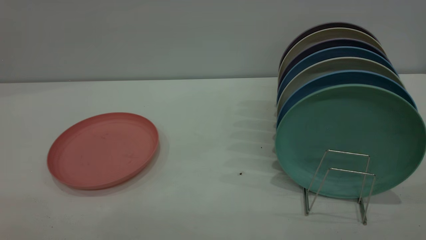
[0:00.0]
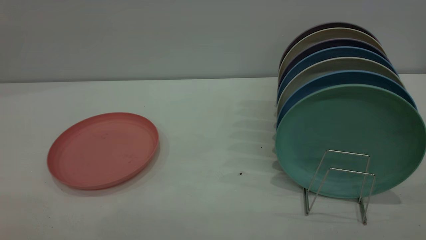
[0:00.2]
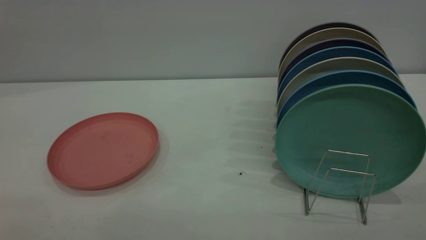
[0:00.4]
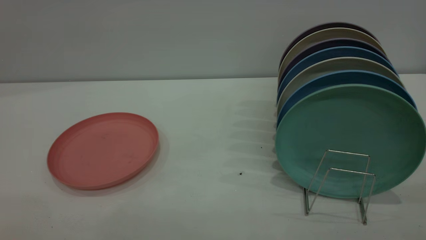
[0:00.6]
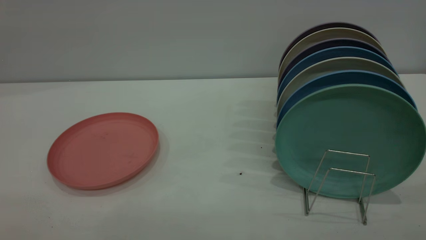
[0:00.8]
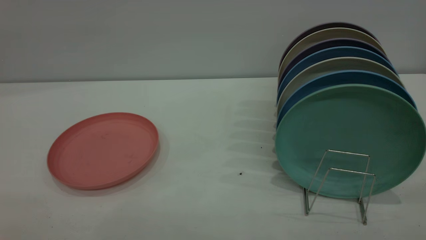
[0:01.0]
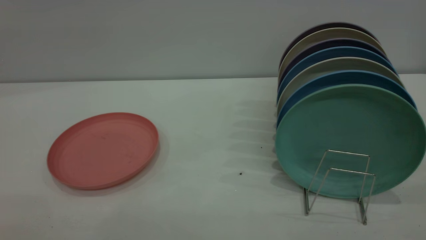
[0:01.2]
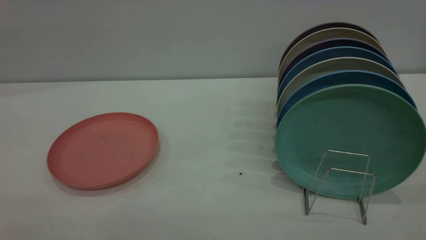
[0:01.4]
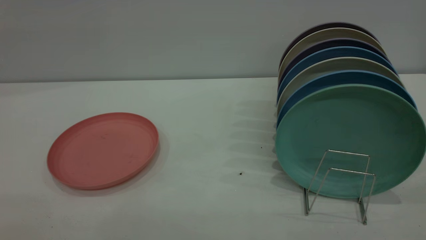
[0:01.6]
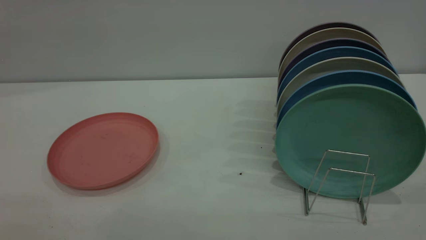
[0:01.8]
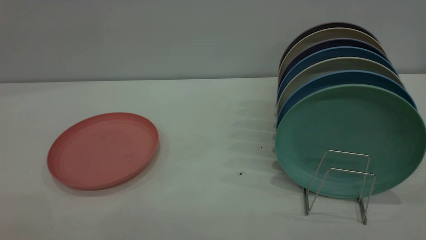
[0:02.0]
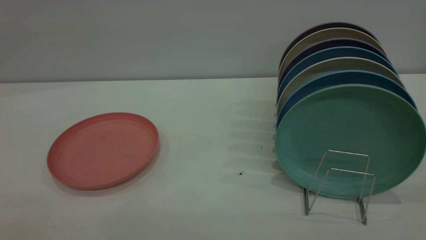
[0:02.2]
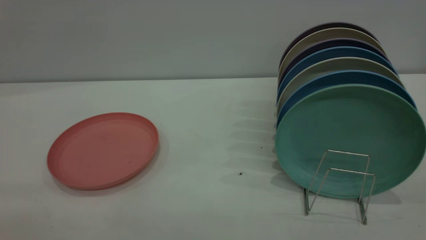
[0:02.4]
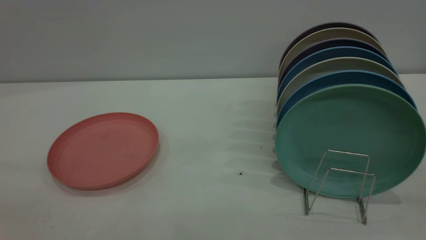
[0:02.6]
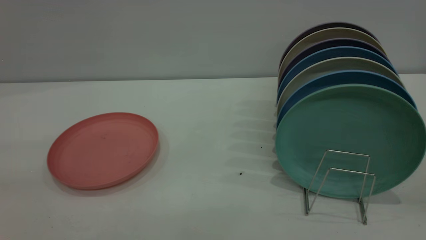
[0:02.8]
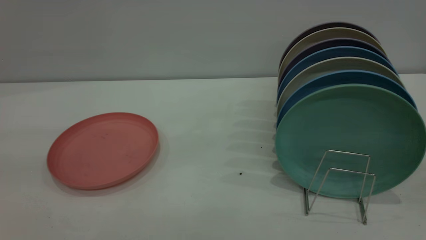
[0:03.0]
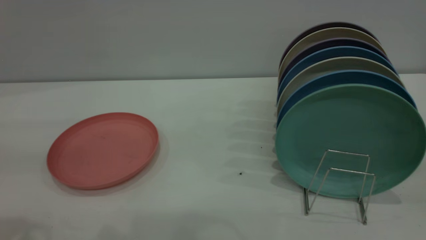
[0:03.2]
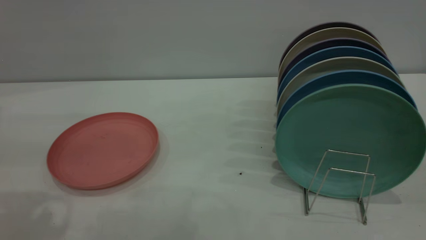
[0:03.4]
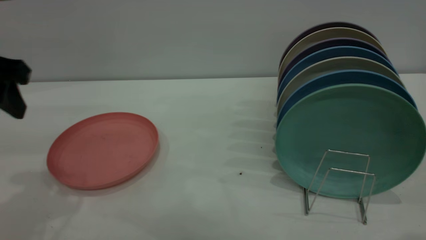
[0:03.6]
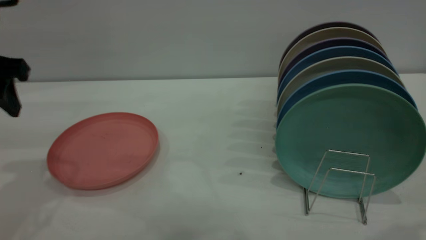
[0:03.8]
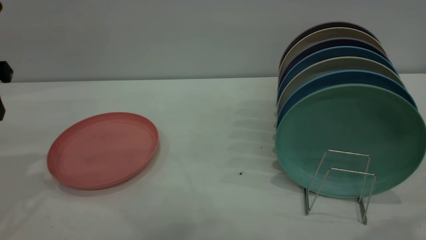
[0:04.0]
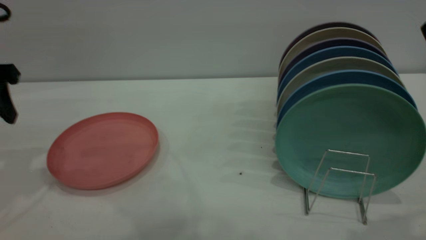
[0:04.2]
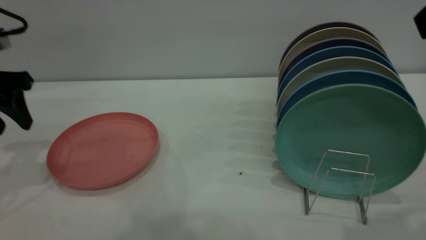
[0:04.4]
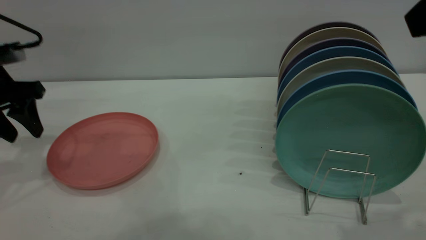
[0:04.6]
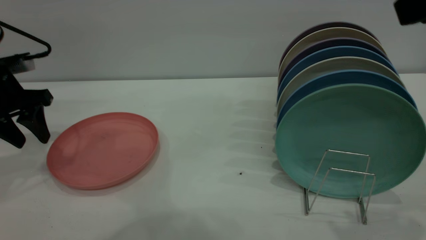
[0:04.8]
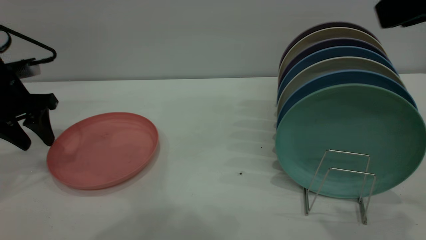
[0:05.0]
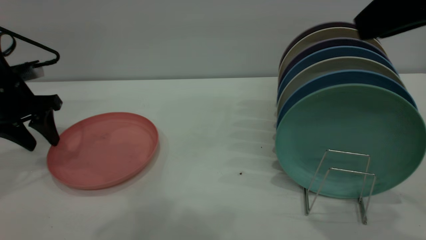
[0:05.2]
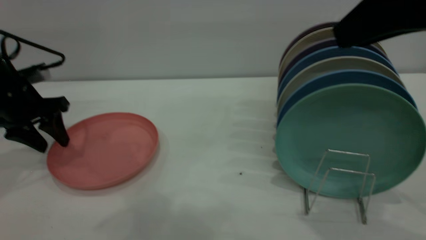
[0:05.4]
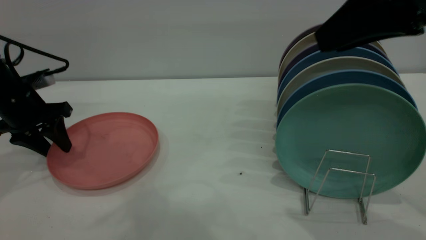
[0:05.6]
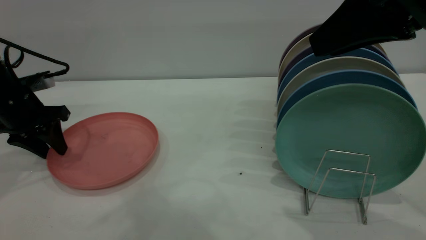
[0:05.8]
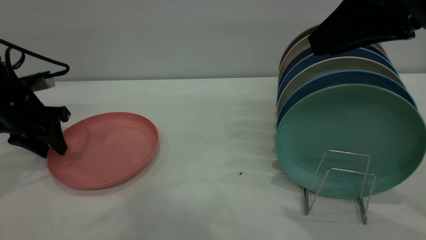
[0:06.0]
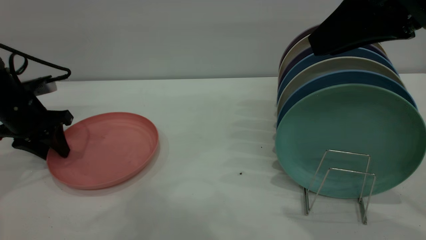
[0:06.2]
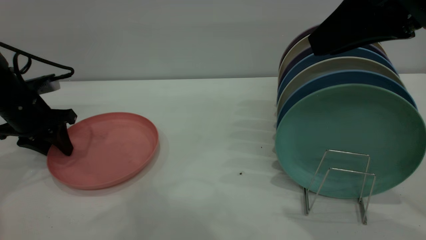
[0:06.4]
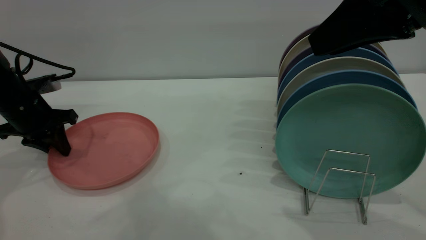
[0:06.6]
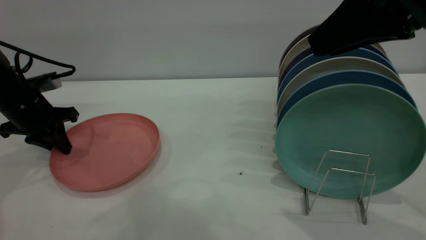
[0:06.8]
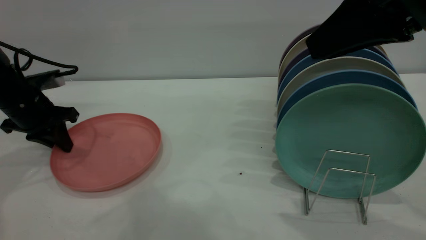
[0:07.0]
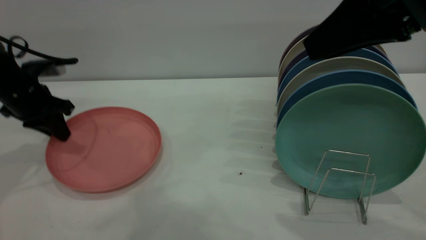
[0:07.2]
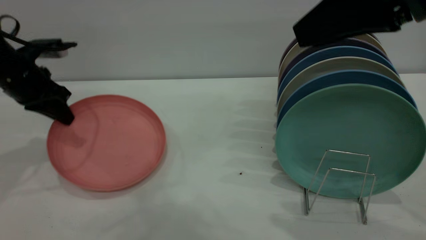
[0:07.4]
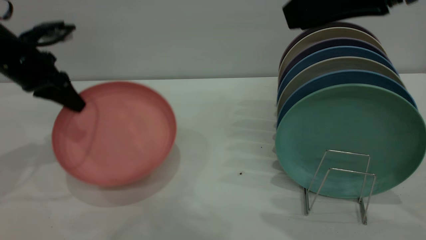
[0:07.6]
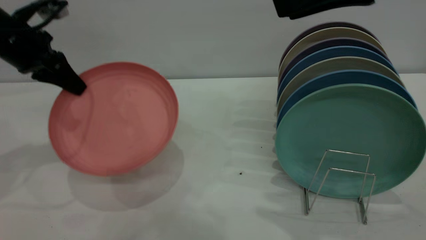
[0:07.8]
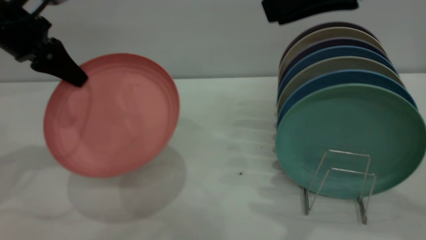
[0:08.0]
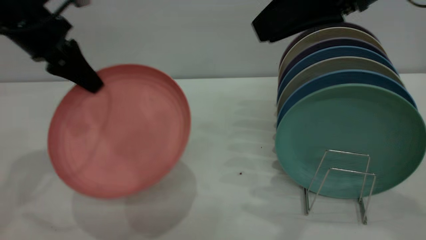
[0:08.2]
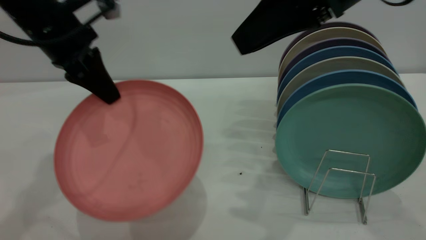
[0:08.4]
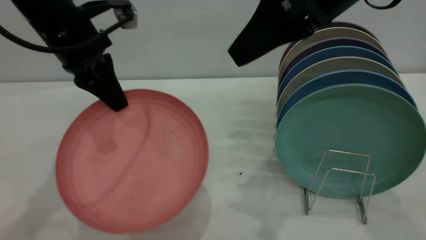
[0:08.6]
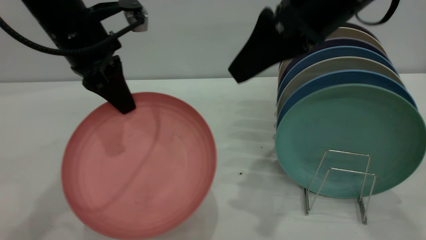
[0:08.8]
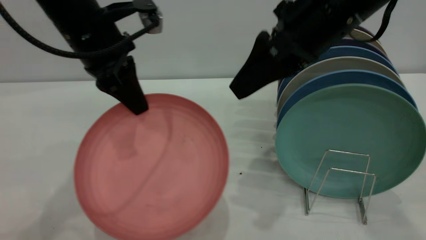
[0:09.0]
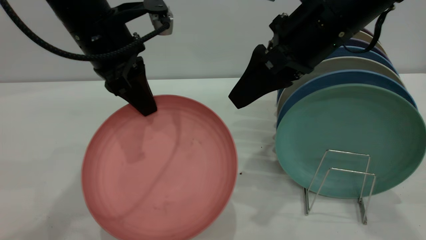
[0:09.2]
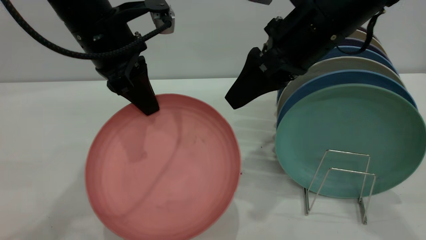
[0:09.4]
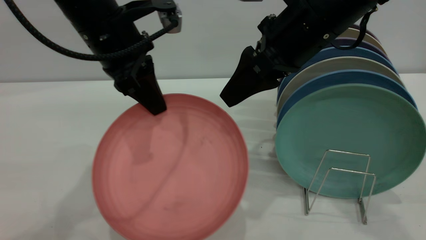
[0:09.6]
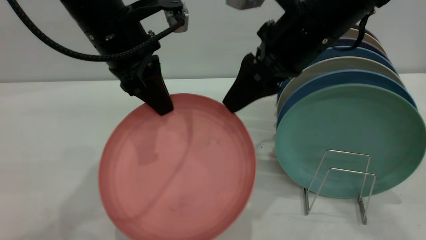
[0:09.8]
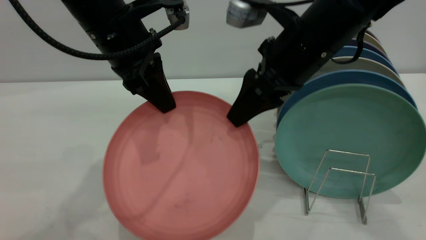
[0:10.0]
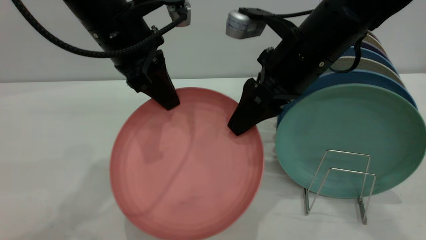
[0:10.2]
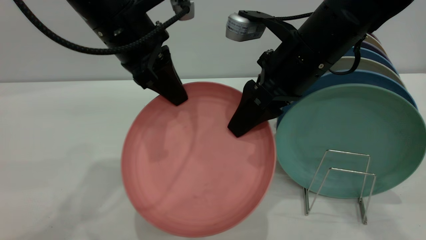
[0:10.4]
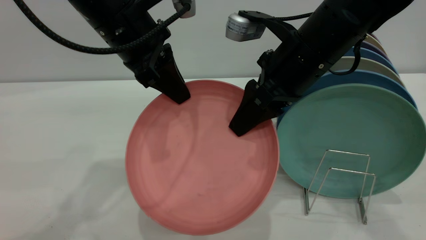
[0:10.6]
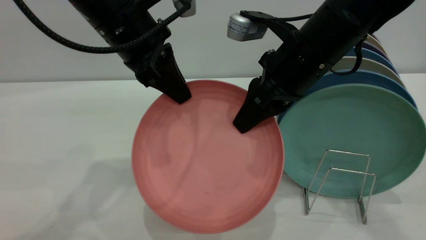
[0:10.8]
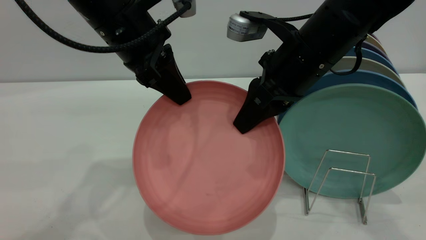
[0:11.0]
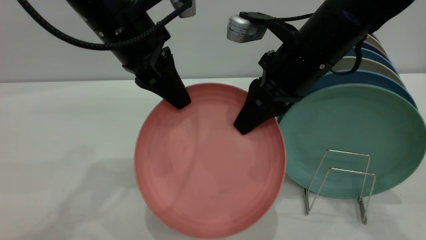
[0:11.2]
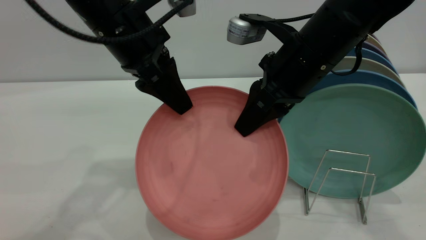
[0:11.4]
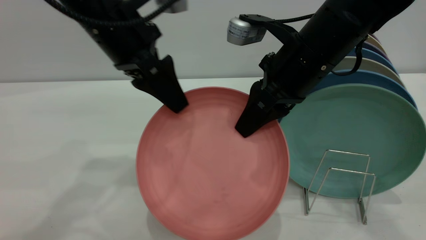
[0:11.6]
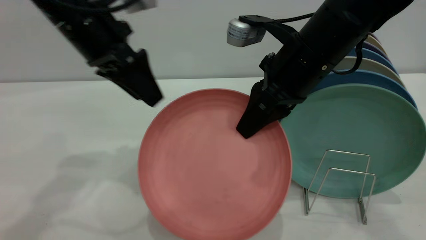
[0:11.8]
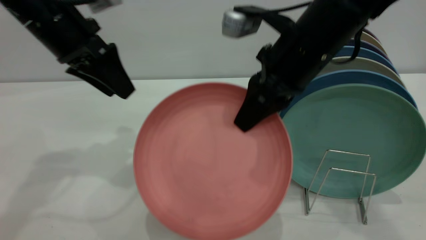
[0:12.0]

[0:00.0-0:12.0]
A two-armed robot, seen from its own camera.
Task of the whole recording: put the plate on the plate rack.
Step, 0:00.0 to 0:07.4: Pick up the plate with the left gripper.
Step, 0:07.6 to 0:11.8: Pass the plate from the left gripper to the right gripper.
0:00.0 to 0:01.6: Both grippers stay about where they are.
0:03.0 to 0:04.4: The left gripper goes about 25 cm forward and downward.
0:04.4 to 0:06.0: The left gripper is displaced downward by about 10 cm. The right gripper heads forward, covering approximately 5 cm.
0:06.0 to 0:07.6: The left gripper is displaced upward by about 5 cm, and closes up.
0:07.6 to 0:09.0: The right gripper heads downward, forward and to the left, covering about 10 cm. Meanwhile the left gripper heads to the right, covering about 15 cm.
0:09.0 to 0:10.4: The right gripper travels downward by roughly 5 cm.
0:10.4 to 0:12.0: The left gripper is displaced to the left by some 10 cm, and opens its fingers; the right gripper closes.

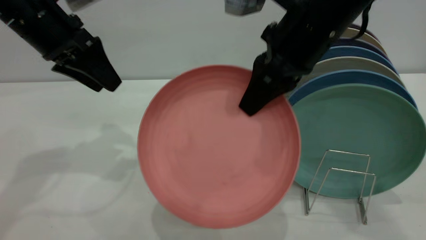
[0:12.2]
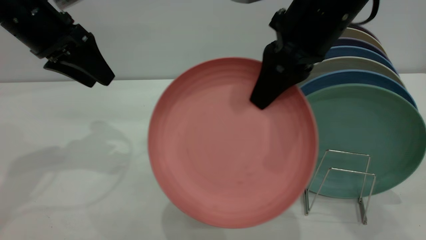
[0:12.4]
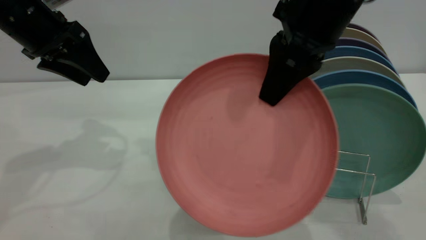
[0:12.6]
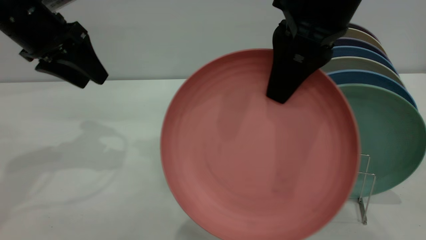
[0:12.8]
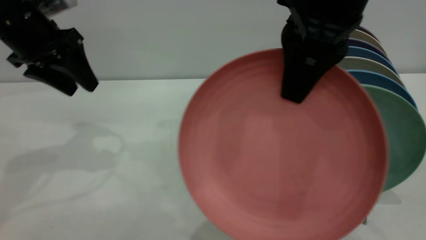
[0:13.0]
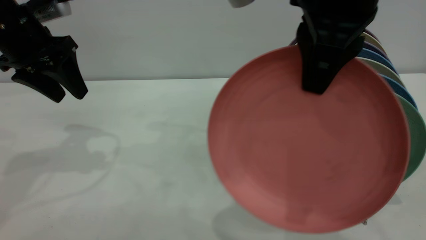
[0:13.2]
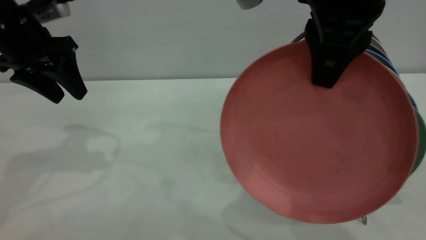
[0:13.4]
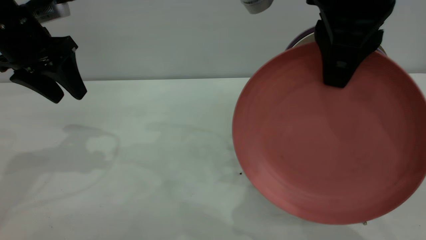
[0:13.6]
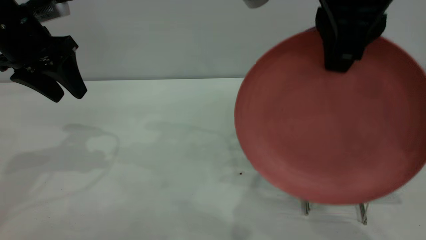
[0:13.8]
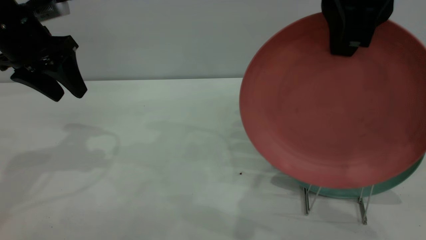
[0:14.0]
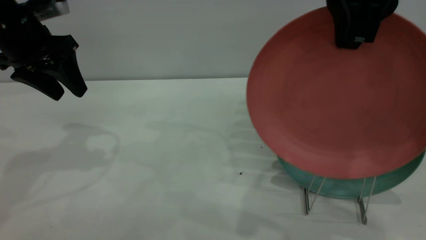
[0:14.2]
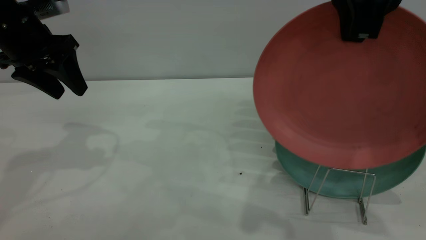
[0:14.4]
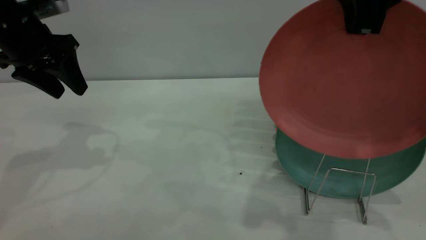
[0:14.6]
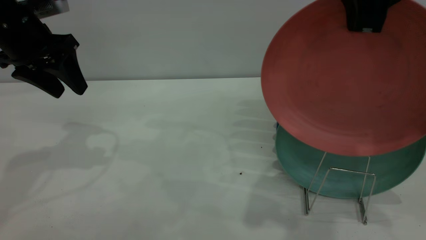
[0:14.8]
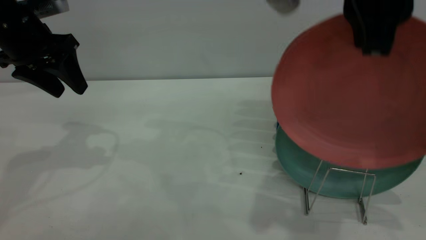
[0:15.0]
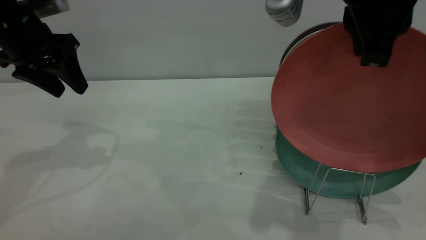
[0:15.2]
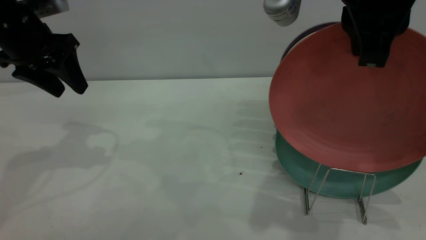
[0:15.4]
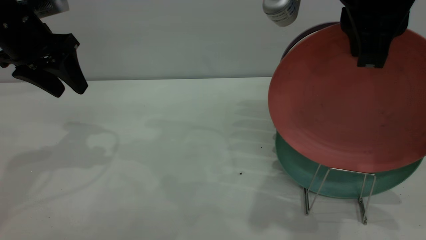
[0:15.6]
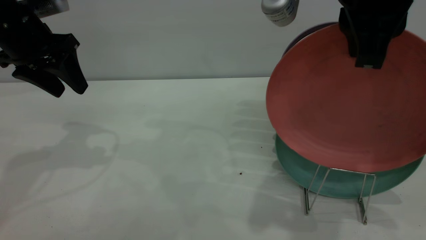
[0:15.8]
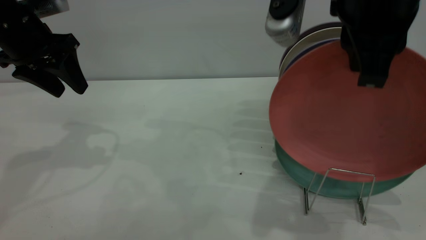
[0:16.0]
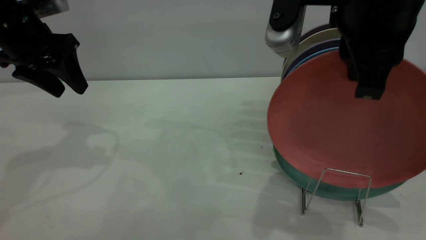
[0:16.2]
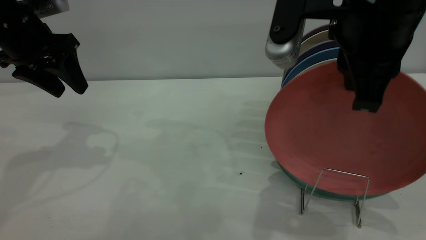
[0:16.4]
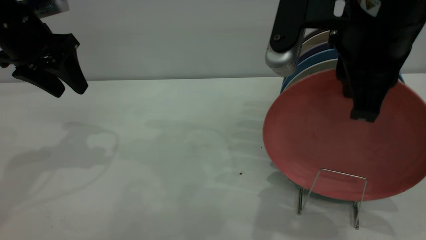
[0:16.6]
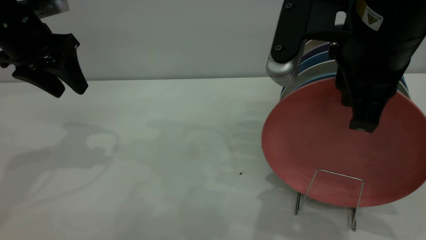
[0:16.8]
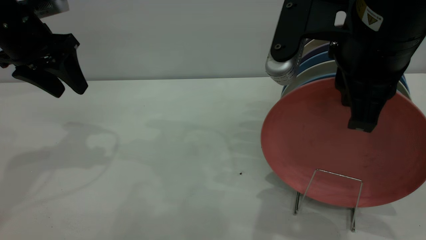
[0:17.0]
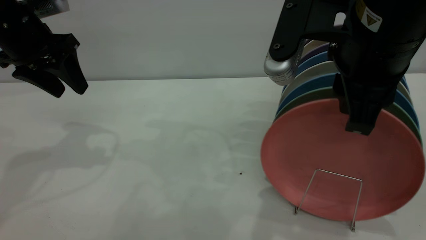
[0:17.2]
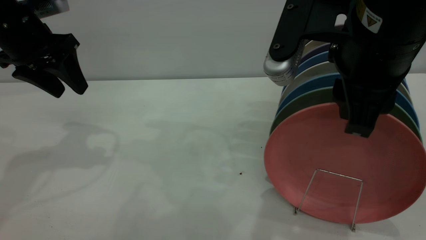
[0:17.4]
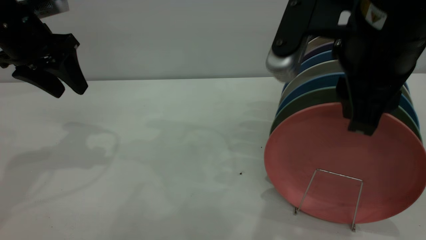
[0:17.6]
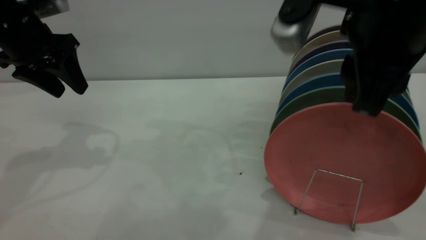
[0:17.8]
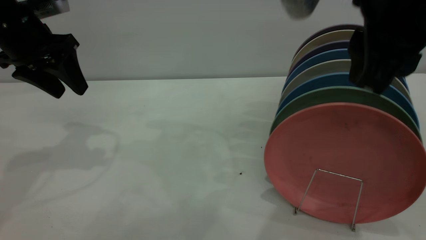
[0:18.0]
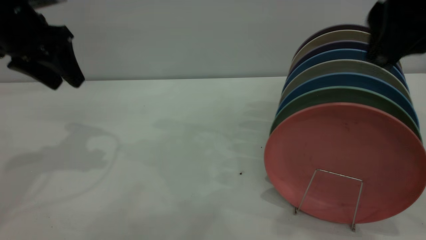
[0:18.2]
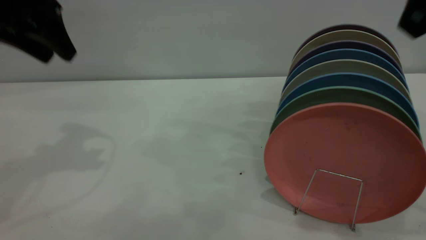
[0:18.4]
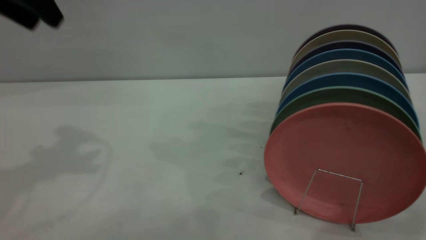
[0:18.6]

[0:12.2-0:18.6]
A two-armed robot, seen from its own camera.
Task of the whole recording: put the plate on the plate rack.
Step, 0:12.2 to 0:18.2: Place the plate on the shelf.
0:12.2 to 0:13.8: The right gripper moves upward and backward, some 10 cm.
0:13.8 to 0:15.4: The grippers move only a little.
0:15.4 to 0:17.0: The right gripper shifts about 5 cm downward.
0:17.0 to 0:18.6: The right gripper is displaced upward, to the right and backward by roughly 15 cm, and opens. Meanwhile the left gripper heads upward, covering approximately 10 cm.
